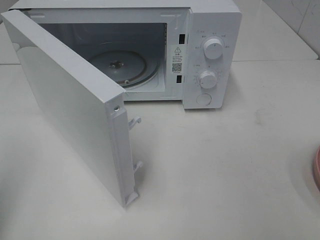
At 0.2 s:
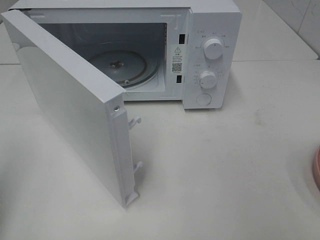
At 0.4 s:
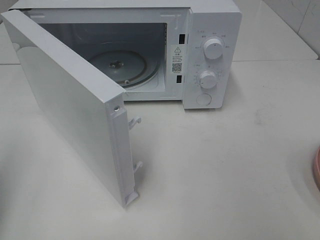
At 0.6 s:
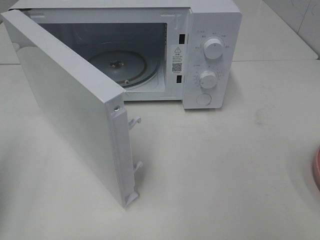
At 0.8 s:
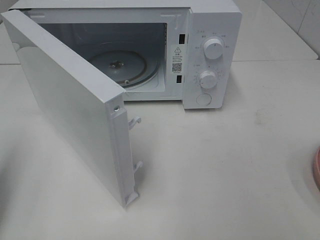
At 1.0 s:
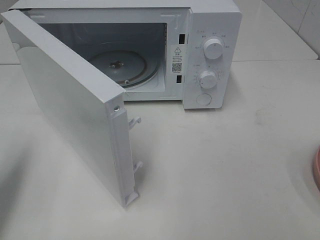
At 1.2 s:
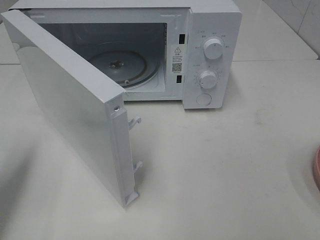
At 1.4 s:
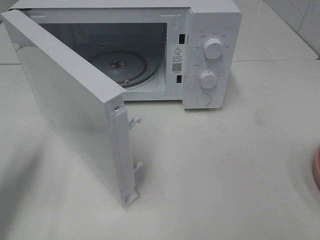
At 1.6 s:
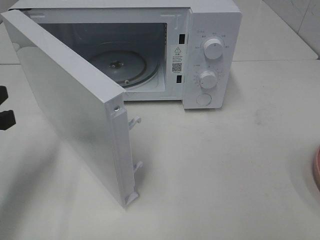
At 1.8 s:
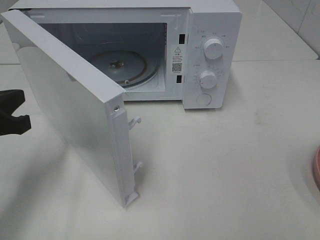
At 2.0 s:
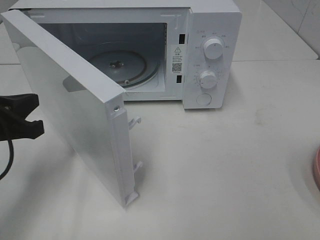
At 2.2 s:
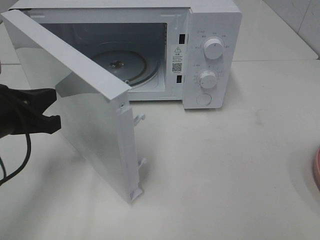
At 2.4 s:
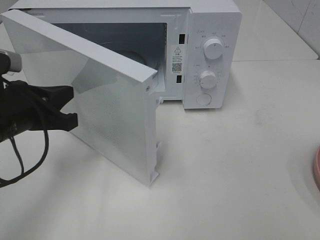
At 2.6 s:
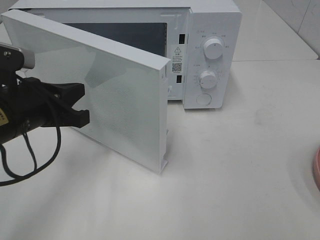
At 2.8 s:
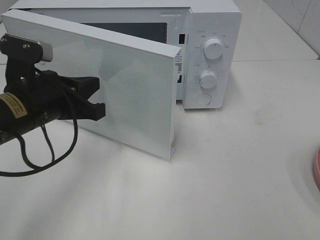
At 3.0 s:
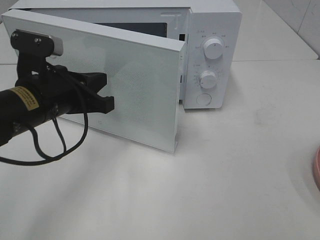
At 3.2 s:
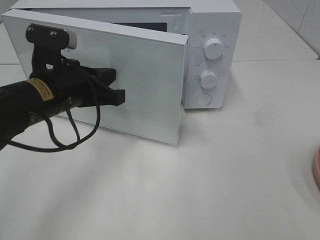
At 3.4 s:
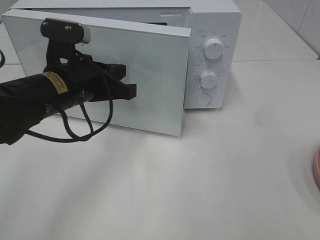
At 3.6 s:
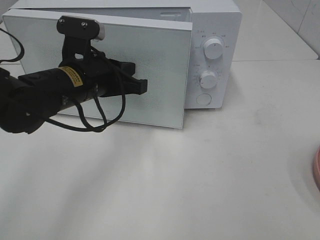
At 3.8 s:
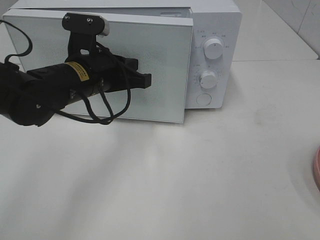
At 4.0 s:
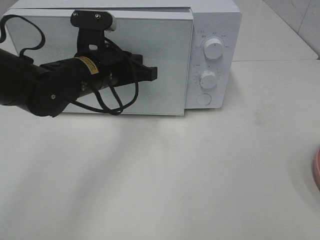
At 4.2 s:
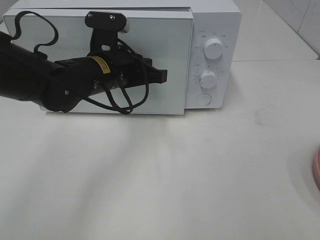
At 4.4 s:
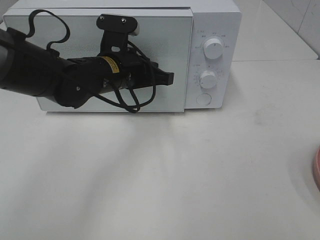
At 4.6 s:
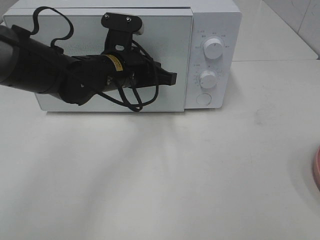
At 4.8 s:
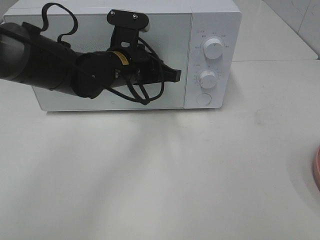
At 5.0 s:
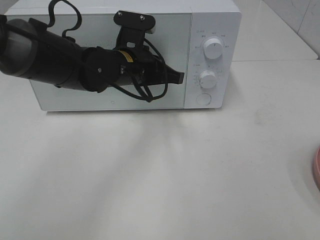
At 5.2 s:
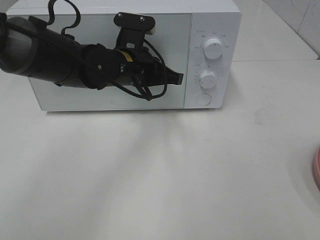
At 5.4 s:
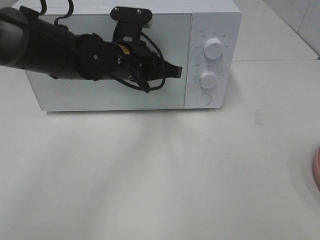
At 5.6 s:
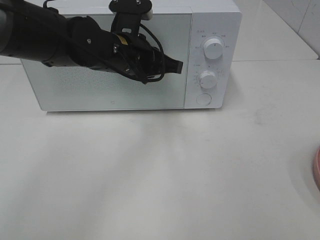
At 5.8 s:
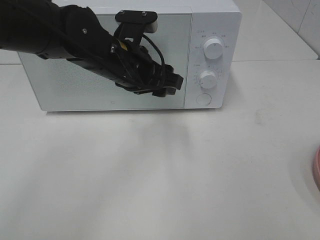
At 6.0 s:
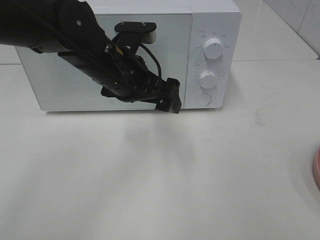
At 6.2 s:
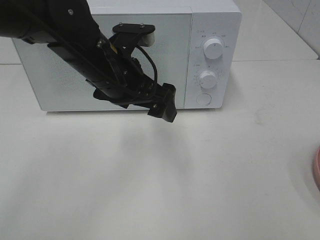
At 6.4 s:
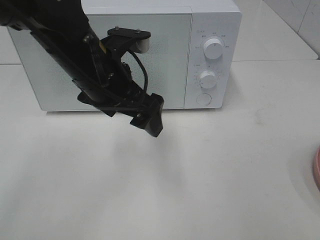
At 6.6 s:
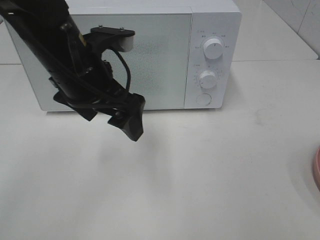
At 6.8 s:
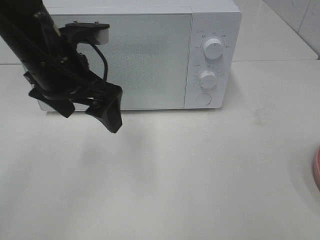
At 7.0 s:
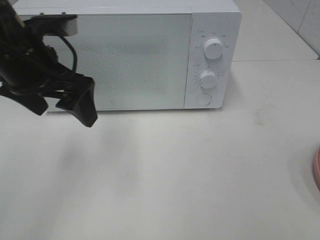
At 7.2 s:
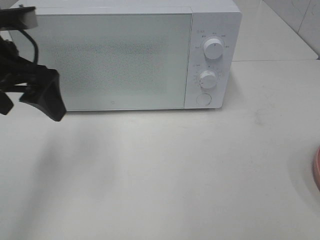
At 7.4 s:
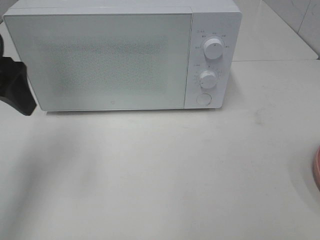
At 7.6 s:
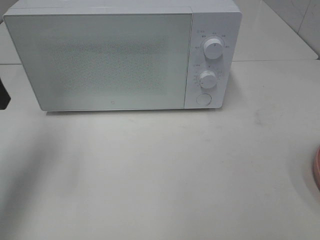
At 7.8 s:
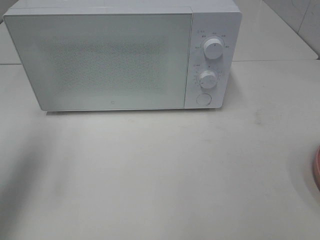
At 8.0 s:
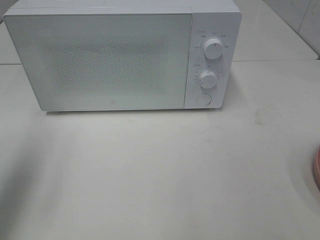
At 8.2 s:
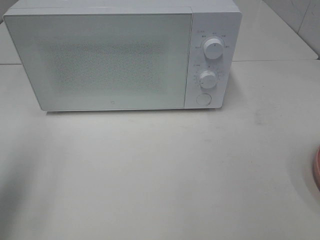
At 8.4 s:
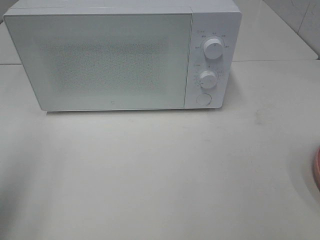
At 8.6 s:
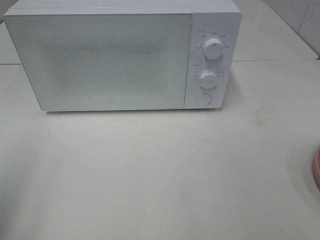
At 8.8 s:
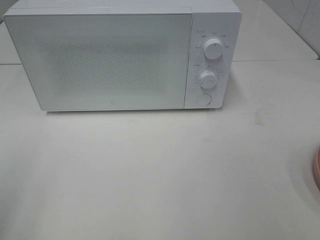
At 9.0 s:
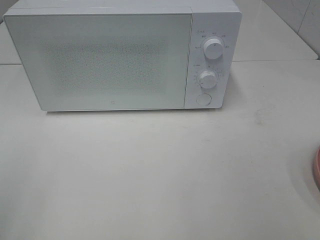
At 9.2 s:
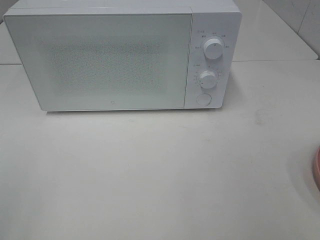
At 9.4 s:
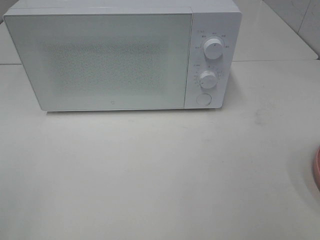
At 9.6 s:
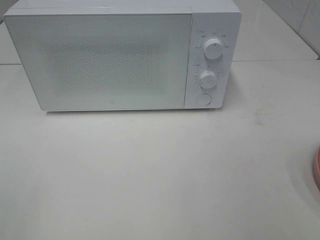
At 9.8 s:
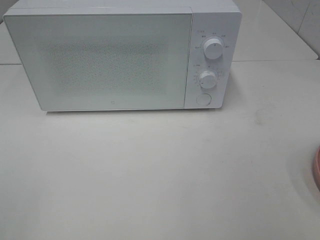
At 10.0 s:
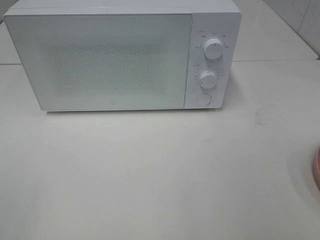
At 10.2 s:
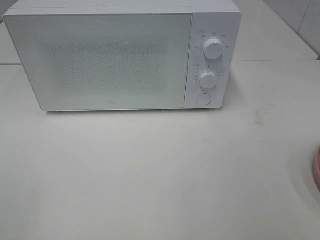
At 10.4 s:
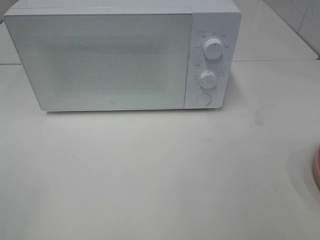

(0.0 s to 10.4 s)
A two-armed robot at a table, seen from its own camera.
Task of the whole recording: Heat the burger.
Step, 0.0 s - 5.6 s: Left hand: close the microwave door.
0.0 s - 1.4 s: The left gripper is displaced downward and forward by roughly 15 cm.
1.4 s - 3.0 s: The left gripper heads to the right and forward, covering some 15 cm.
3.0 s - 4.4 s: The left gripper goes about 10 cm to the right and forward.
4.4 s - 6.0 s: The left gripper shifts by approximately 5 cm, and opens.
6.0 s - 7.4 s: The left gripper goes roughly 20 cm to the left and upward.
7.4 s - 9.0 s: The left gripper travels backward by approximately 20 cm.

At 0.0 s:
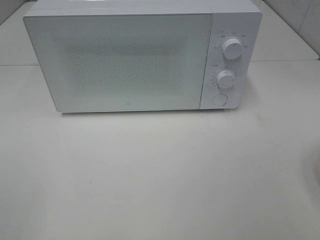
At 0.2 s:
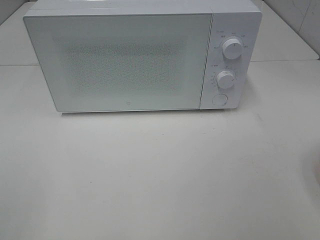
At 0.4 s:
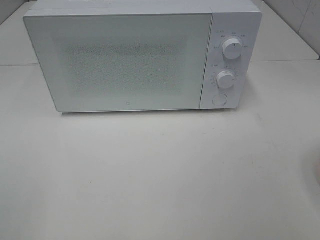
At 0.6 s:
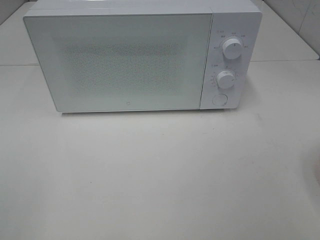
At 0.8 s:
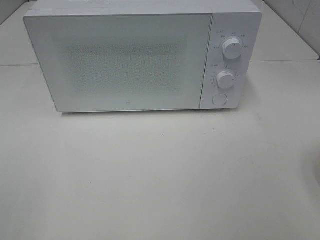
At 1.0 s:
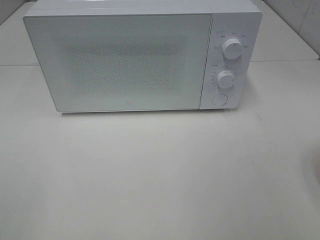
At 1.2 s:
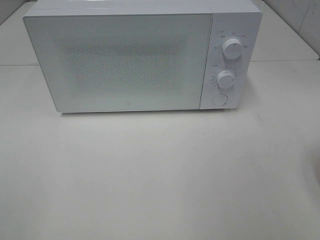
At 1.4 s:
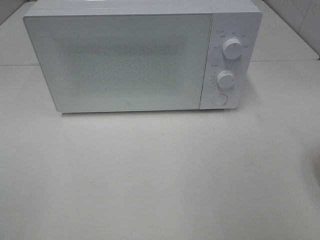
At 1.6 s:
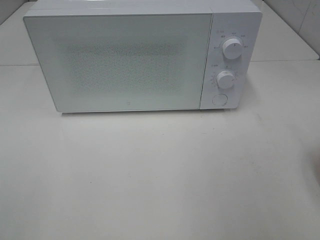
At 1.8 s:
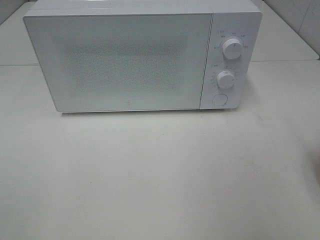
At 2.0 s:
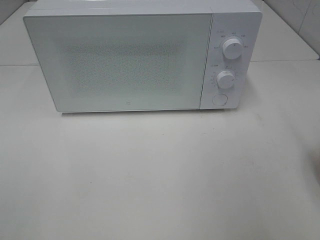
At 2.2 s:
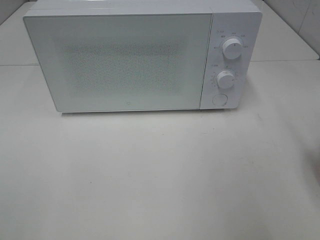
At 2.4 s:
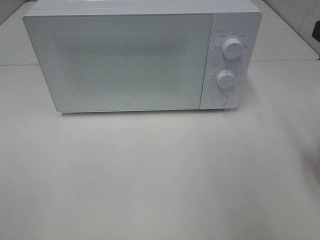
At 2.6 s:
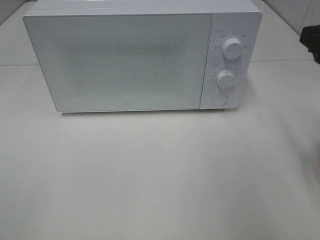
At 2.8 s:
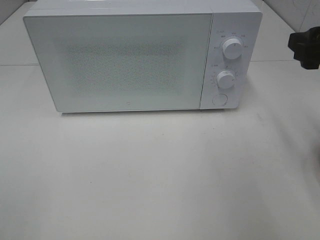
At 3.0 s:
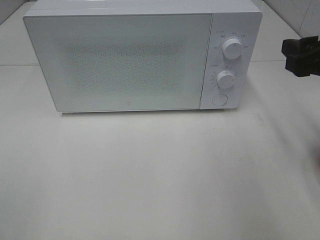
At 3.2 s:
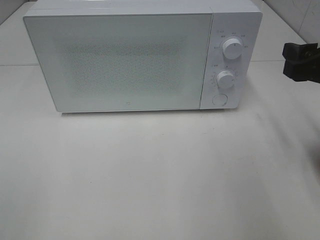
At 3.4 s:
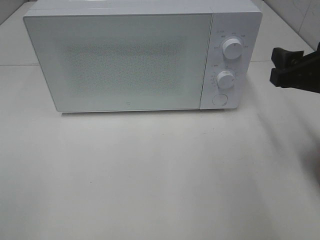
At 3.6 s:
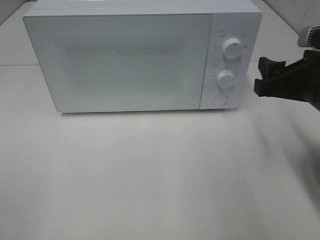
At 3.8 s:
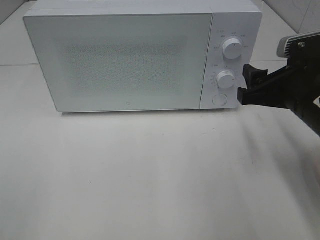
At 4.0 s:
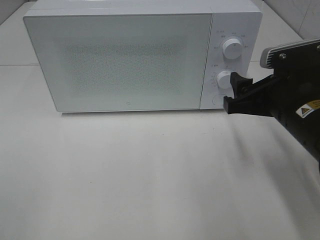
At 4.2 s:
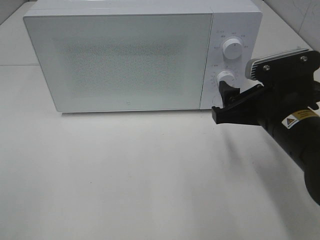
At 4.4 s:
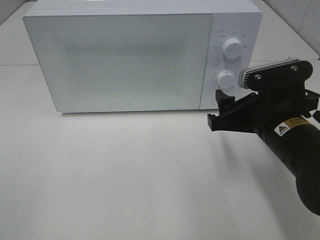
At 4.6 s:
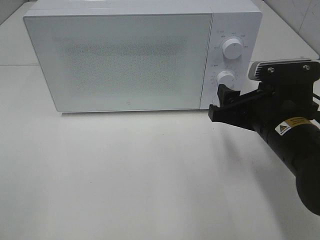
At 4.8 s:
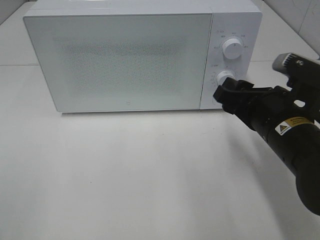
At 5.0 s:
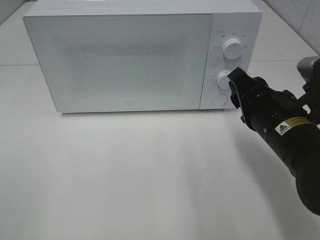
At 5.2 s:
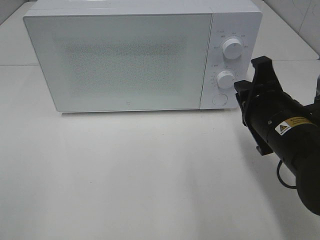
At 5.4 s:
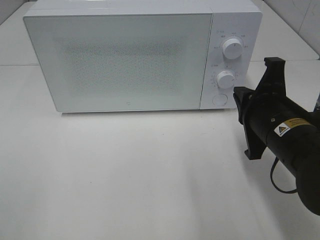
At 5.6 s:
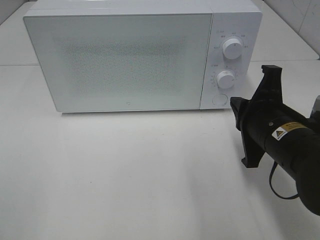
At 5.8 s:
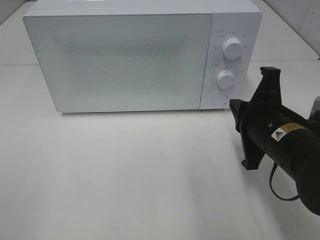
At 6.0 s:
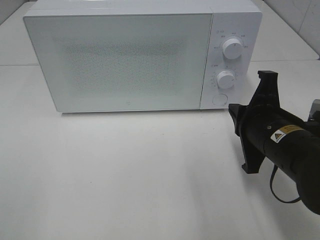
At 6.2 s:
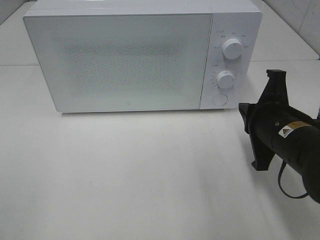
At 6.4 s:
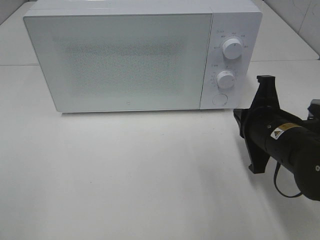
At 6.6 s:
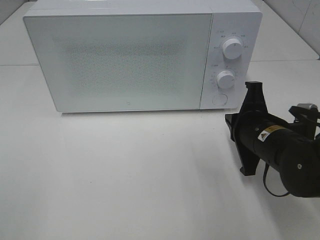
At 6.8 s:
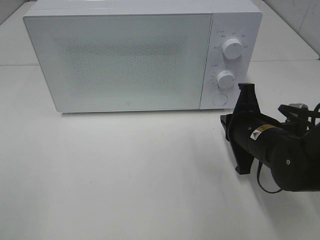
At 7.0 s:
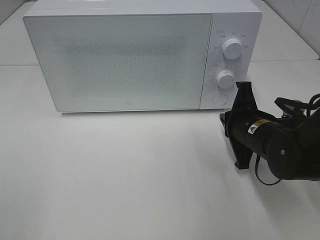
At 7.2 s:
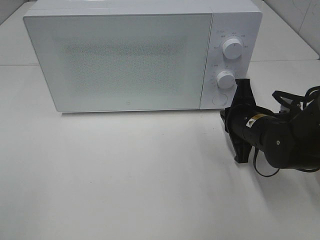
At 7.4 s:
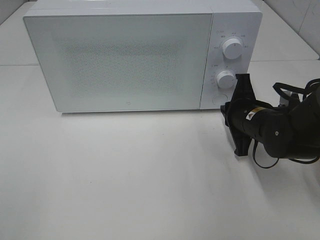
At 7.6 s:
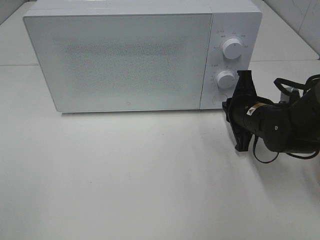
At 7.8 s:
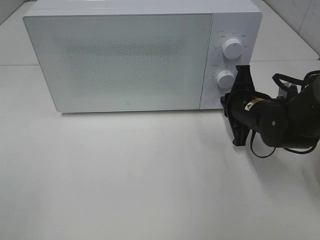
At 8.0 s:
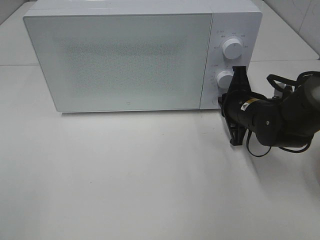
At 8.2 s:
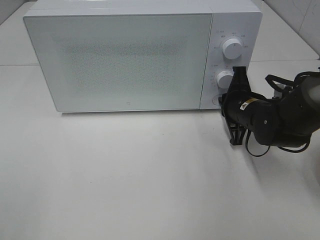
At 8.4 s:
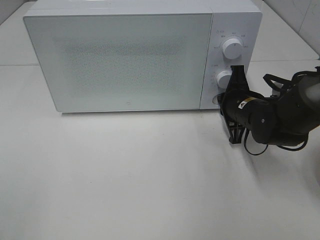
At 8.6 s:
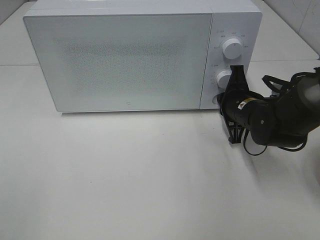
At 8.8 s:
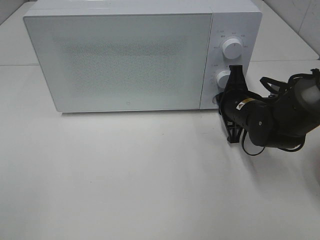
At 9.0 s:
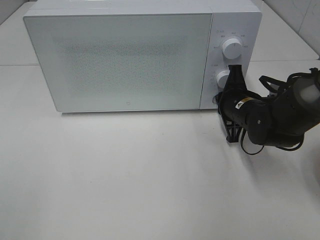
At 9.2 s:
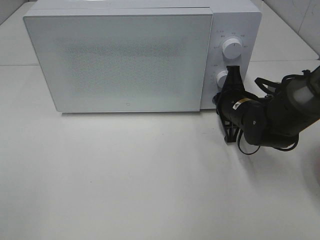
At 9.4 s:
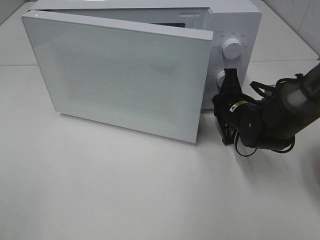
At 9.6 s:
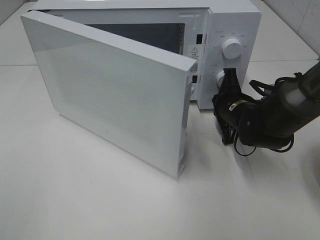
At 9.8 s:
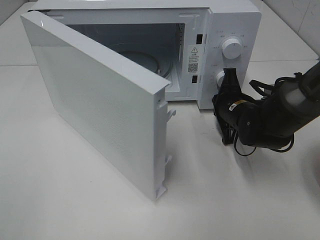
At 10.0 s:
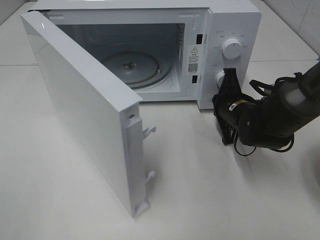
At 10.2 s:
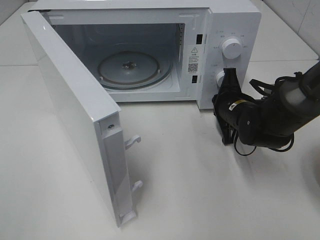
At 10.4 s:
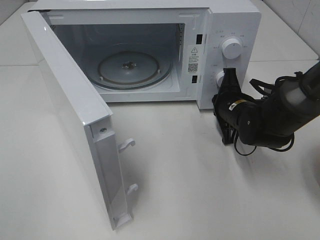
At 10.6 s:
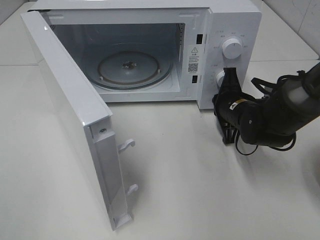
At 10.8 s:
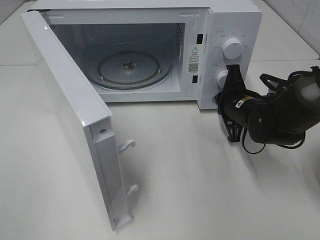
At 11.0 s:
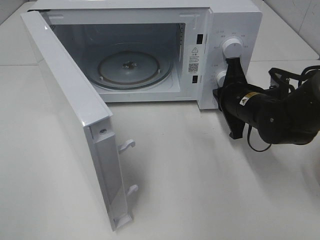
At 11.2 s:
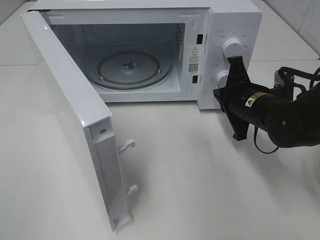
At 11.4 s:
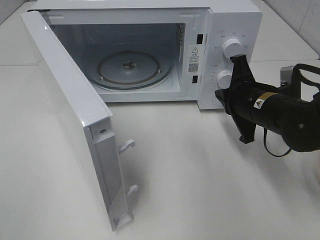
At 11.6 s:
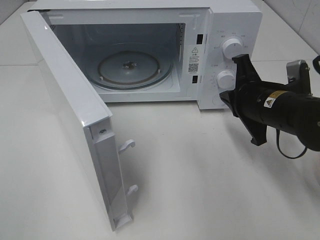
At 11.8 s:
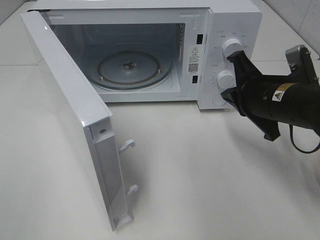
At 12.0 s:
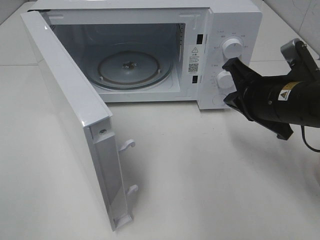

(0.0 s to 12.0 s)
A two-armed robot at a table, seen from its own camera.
Task of the whole recording: Heat the burger.
Step, 0.0 s - 11.0 s: Right hand: press the switch.
1.6 s - 3.0 s: The right gripper heads forward and downward, covering roughly 15 cm.
3.0 s - 4.4 s: The right gripper is displaced to the left and downward by about 15 cm.
4.4 s - 6.0 s: The right gripper closes.
6.0 s - 7.6 s: The right gripper heads forward and downward, covering approximately 10 cm.
7.6 s - 9.0 s: The grippers stay close to where they were, moving slightly.
10.4 s - 12.0 s: The right gripper moves upward and backward, about 15 cm.
